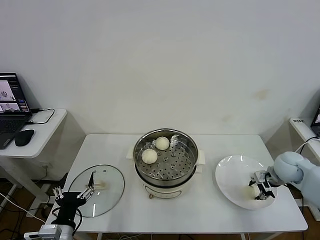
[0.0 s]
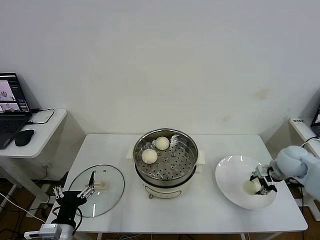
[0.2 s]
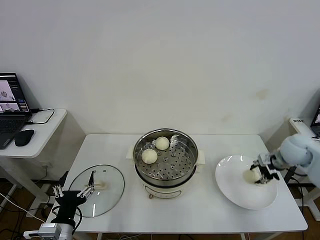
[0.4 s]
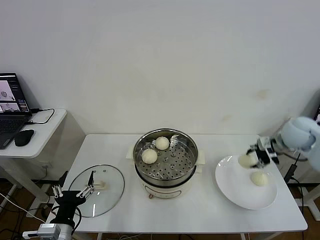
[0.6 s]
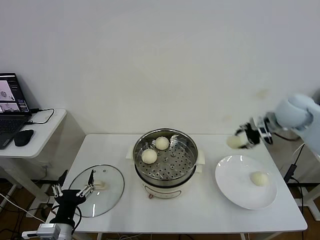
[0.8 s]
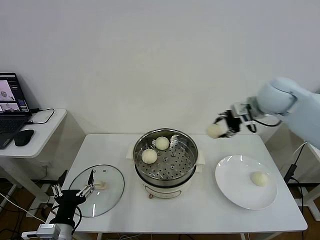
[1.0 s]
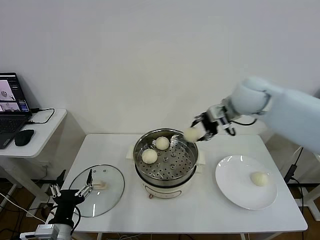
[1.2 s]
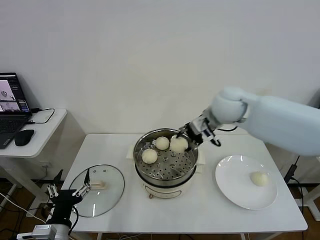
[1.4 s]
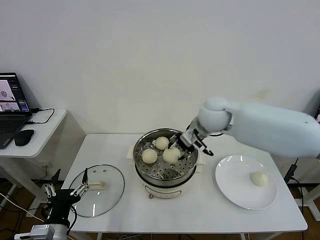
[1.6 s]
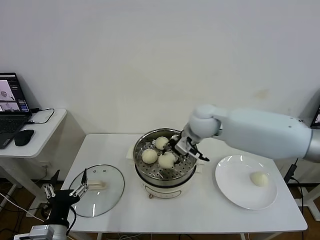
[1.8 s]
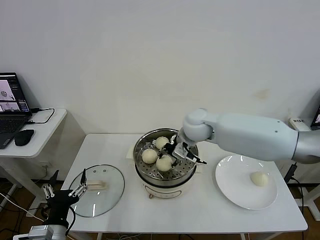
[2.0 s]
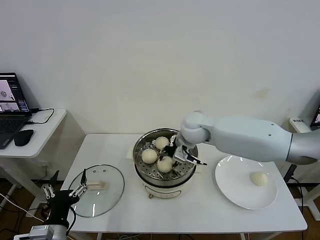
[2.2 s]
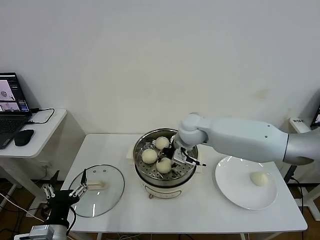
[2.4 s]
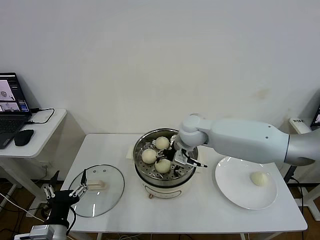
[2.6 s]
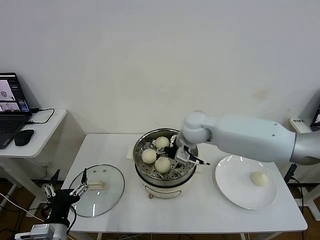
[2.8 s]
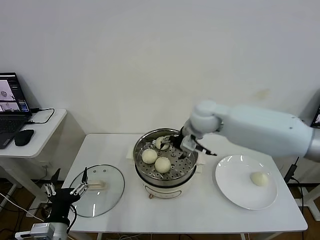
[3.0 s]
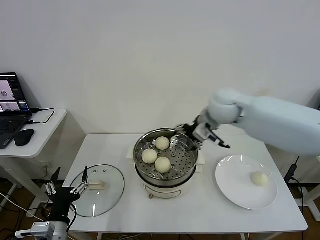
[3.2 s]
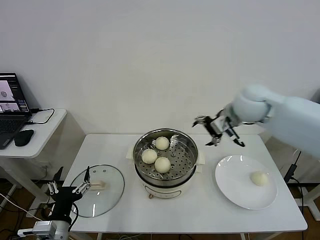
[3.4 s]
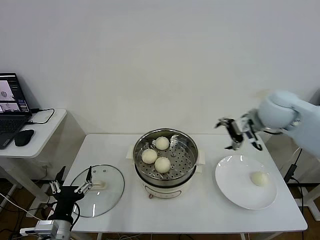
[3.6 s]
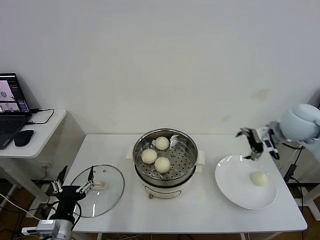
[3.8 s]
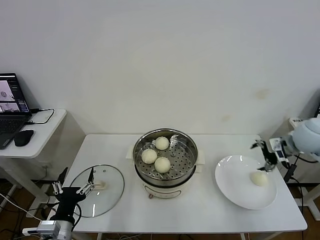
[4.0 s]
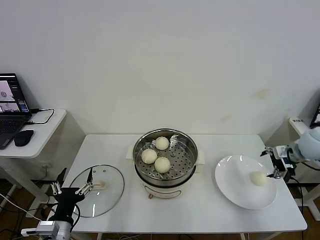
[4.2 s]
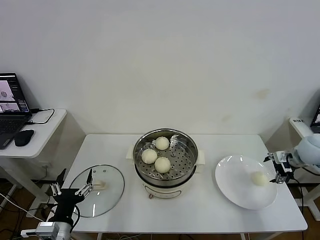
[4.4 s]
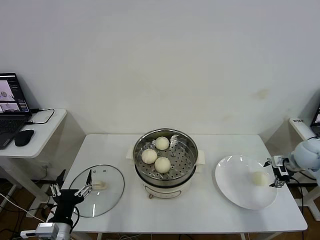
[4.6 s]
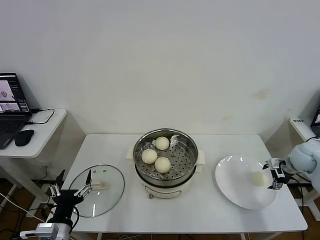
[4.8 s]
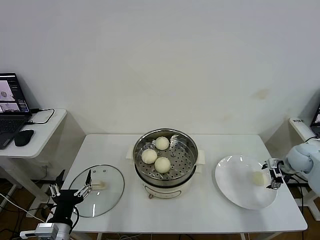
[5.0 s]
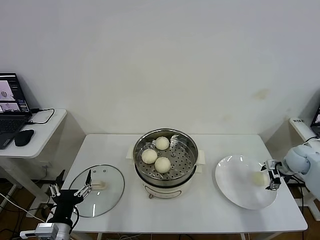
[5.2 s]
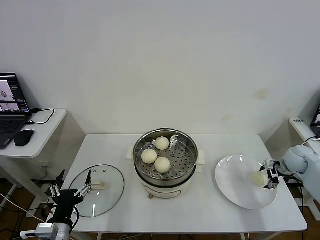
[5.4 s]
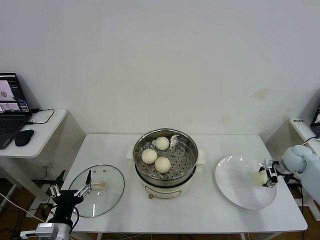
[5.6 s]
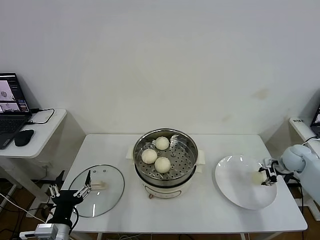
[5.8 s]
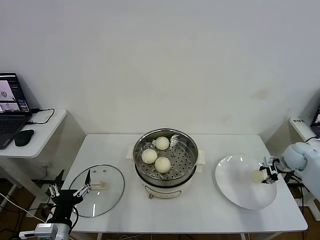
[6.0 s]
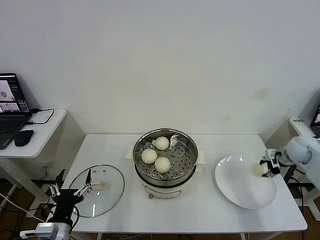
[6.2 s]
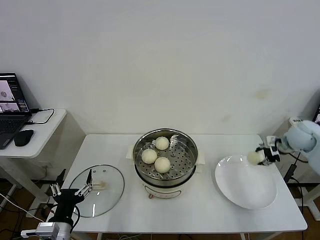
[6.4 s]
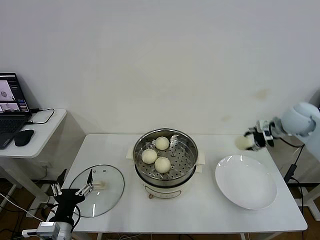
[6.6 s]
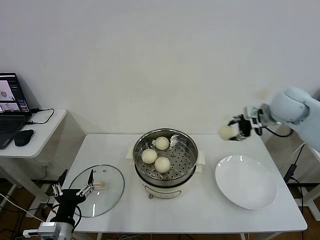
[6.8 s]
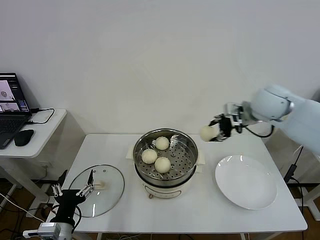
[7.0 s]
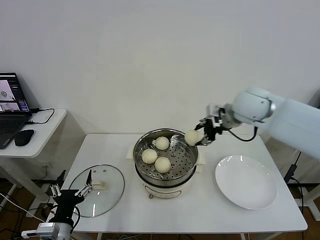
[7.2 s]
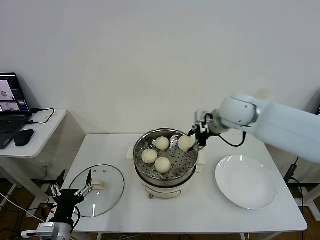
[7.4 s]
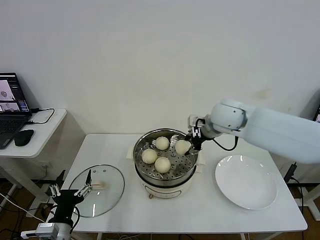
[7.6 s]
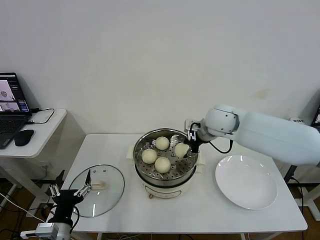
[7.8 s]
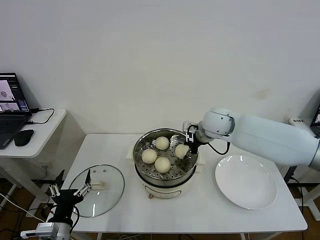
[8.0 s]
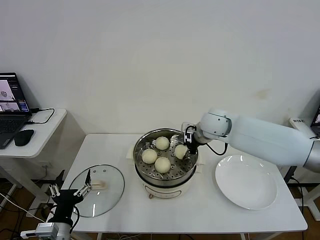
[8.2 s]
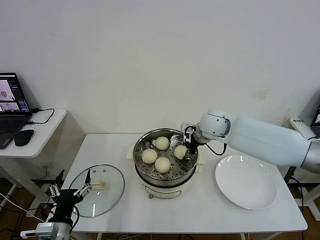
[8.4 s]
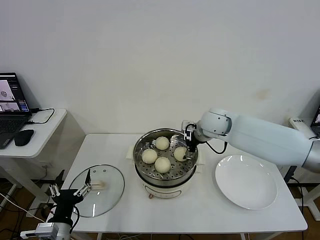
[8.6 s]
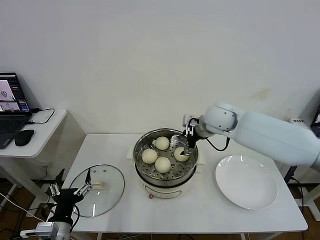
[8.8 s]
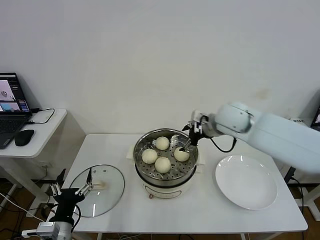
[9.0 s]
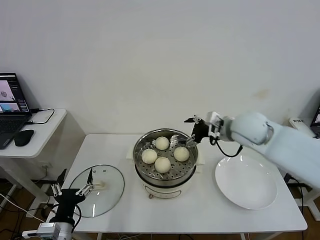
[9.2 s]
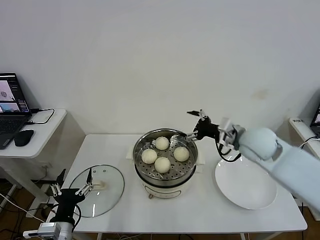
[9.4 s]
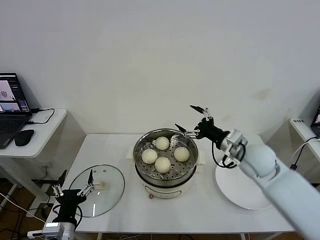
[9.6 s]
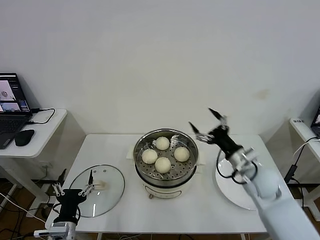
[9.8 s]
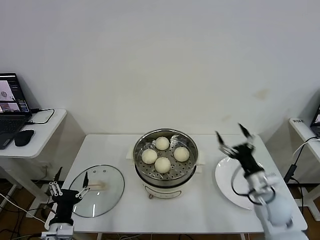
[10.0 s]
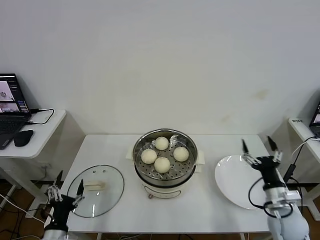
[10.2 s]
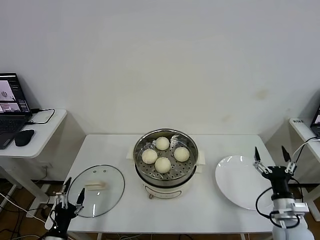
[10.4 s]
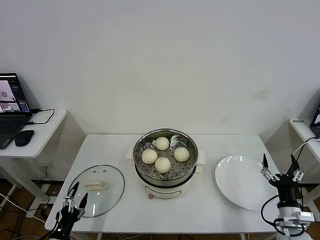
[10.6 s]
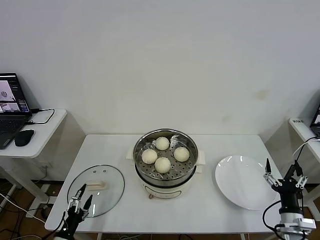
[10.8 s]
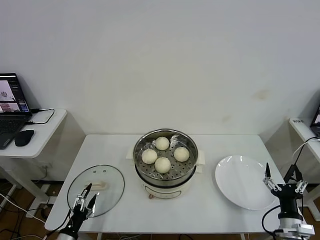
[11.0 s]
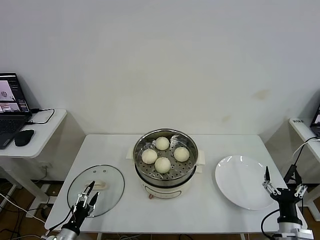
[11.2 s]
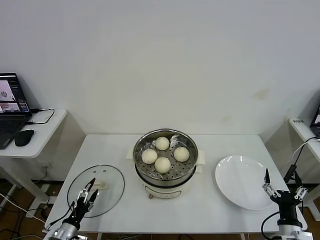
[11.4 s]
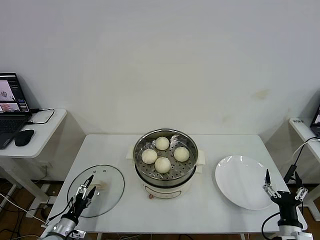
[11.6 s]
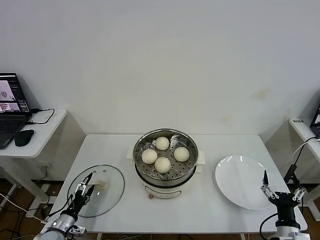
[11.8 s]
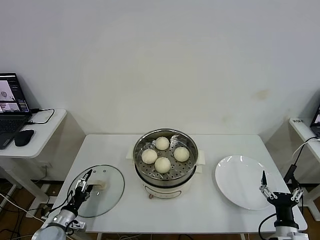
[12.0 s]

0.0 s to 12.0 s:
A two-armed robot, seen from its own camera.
Step, 0.0 to 2.8 s: Place the baozi on the steamer with right gripper.
Step, 3.0 to 5.8 s: Grasp the baozi in the plate with right gripper.
Step, 6.0 to 8.6 s: Place the baozi on the steamer with right gripper.
0.0 to 1.6 s: The right gripper travels to the left and upward by about 35 cm.
1.6 to 3.0 s: The right gripper opens.
3.0 to 4.4 s: The right gripper heads to the right, covering approximately 35 cm.
4.4 to 6.0 s: The right gripper heads downward, covering some 10 cm, and closes.
6.0 to 7.6 s: The right gripper shifts approximately 35 cm to the left and upward.
7.6 to 9.0 s: The right gripper opens up.
9.0 to 10.4 s: The left gripper goes about 10 cm downward and to the left; the right gripper shifts some 40 cm backward, downward and to the right.
10.4 to 12.0 s: The left gripper travels forward and downward by approximately 10 cm. The right gripper shifts about 5 cm backward.

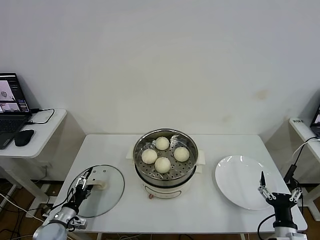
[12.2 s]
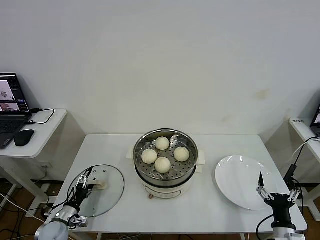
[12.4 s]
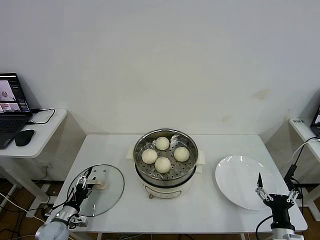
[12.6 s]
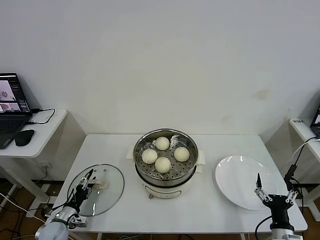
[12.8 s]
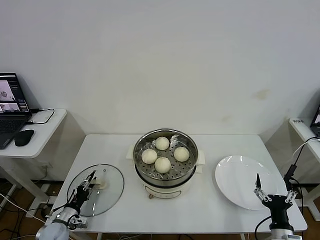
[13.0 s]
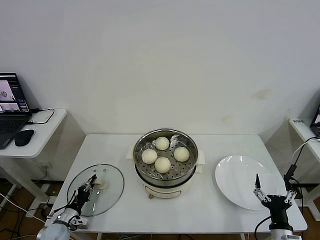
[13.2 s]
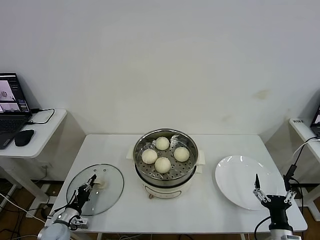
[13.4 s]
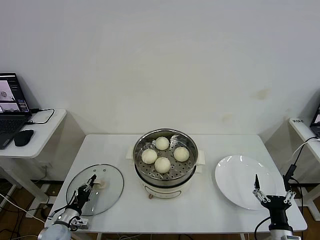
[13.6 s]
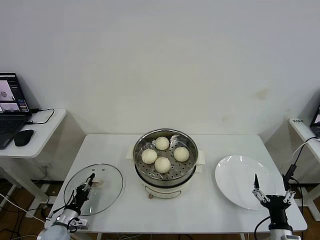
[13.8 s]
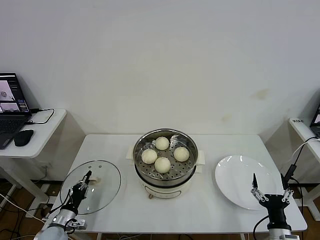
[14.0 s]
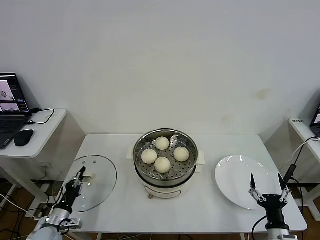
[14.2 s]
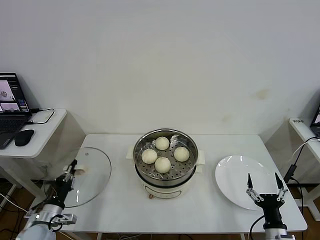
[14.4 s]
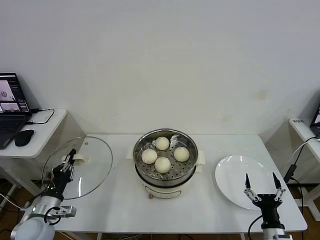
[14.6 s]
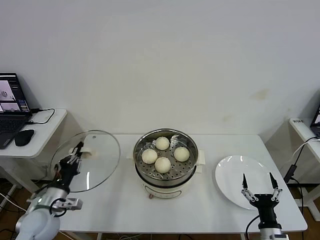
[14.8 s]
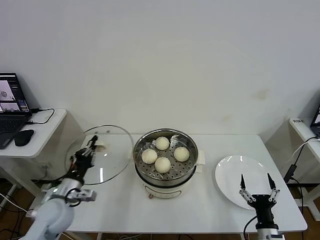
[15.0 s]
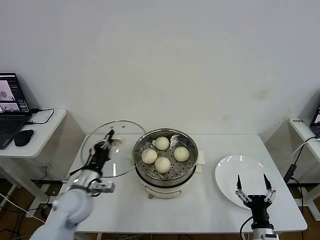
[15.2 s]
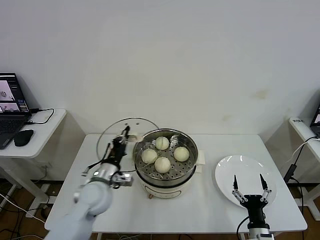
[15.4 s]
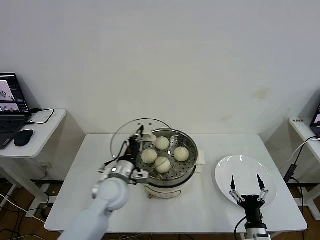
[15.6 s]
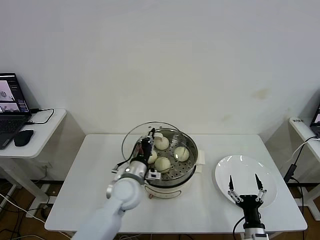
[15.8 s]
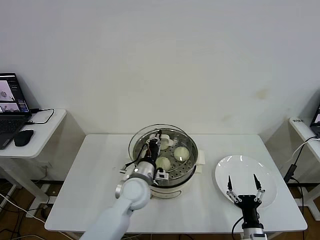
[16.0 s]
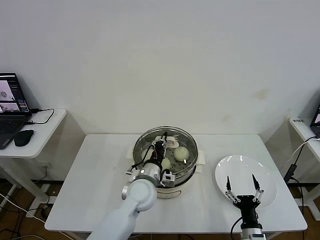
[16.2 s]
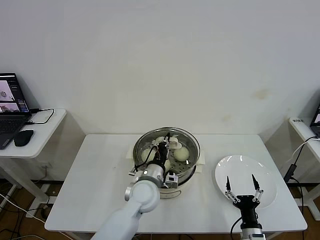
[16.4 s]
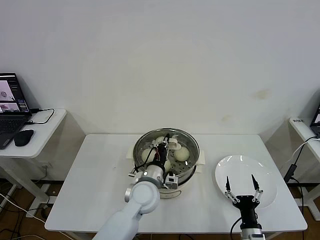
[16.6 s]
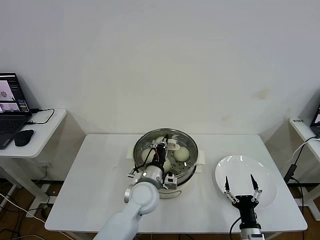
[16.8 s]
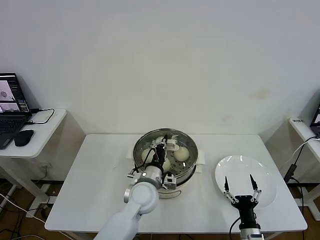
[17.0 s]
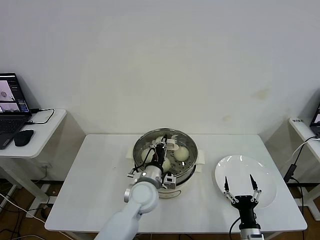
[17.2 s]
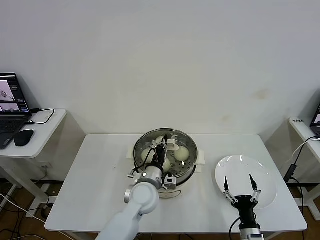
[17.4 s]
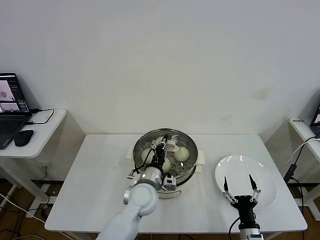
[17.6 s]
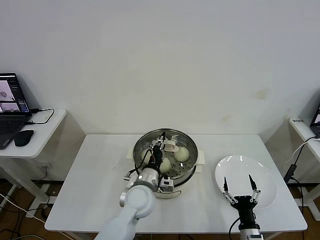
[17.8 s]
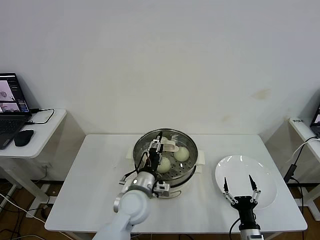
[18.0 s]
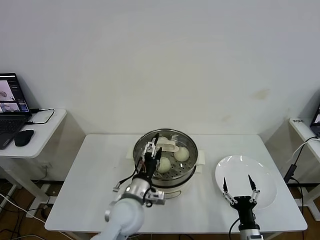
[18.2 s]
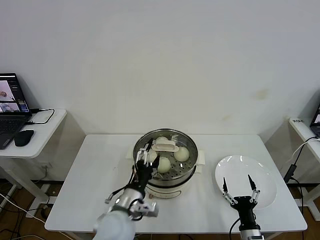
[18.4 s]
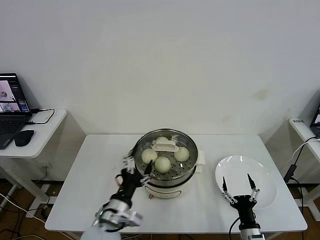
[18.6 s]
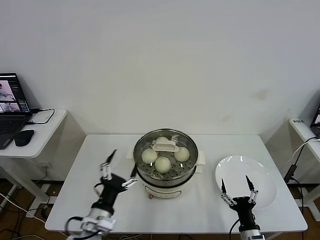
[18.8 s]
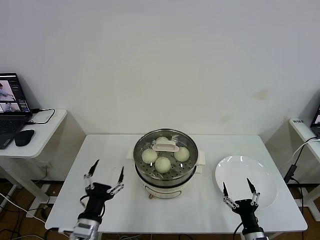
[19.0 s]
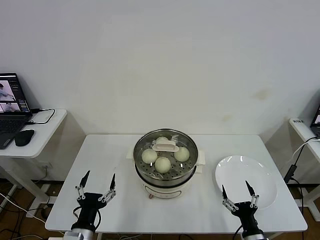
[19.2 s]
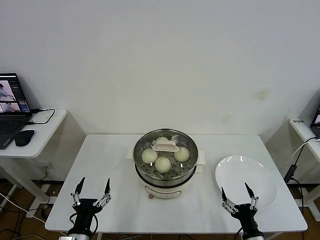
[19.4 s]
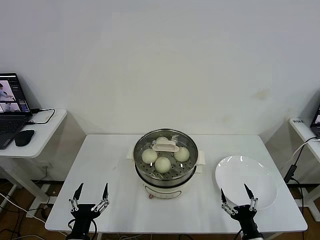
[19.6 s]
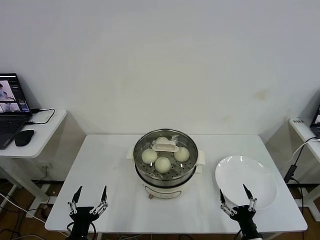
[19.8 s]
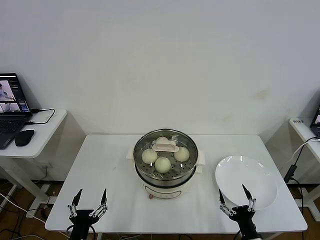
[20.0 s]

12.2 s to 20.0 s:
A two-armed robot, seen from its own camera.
Step, 13.6 to 18.0 s: Place the pot lid on the steamer with left gripper.
12.2 to 13.8 s: The left gripper closes its fingers.
13.8 to 15.4 s: The right gripper moves roughly 5 cm, while the left gripper is displaced upward and to the right by about 30 cm.
15.4 to 16.8 s: The left gripper heads to the right, covering approximately 15 cm.
16.8 to 18.4 s: The left gripper moves backward and to the left, some 10 cm, and opens its fingers.
18.4 to 20.0 s: The left gripper shifts some 20 cm to the left, backward and downward.
